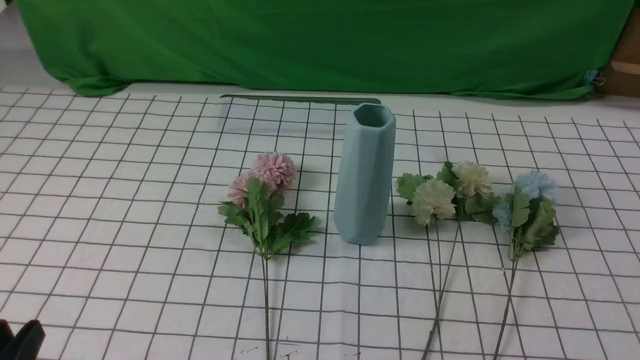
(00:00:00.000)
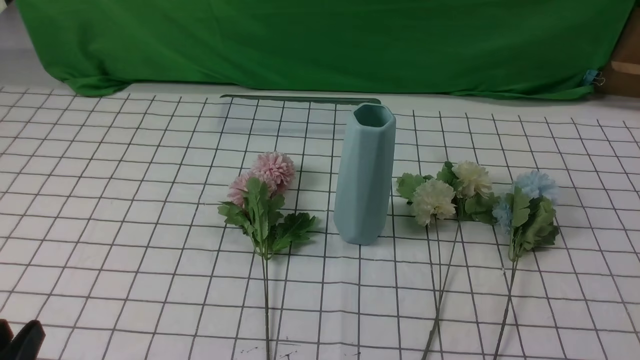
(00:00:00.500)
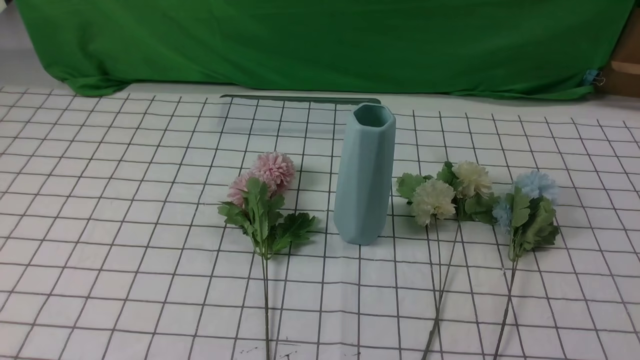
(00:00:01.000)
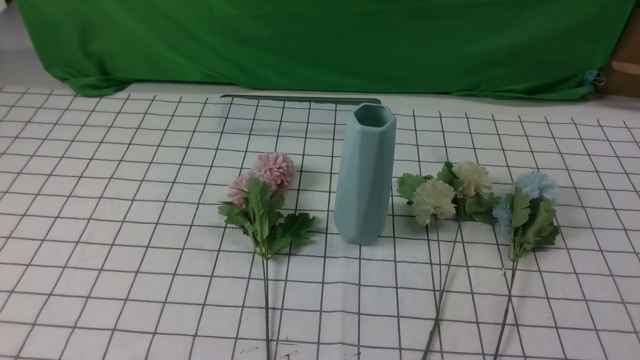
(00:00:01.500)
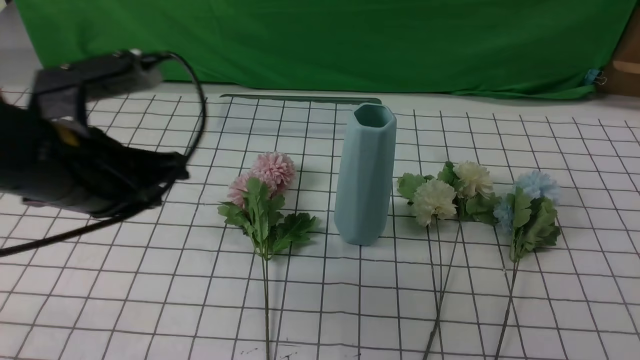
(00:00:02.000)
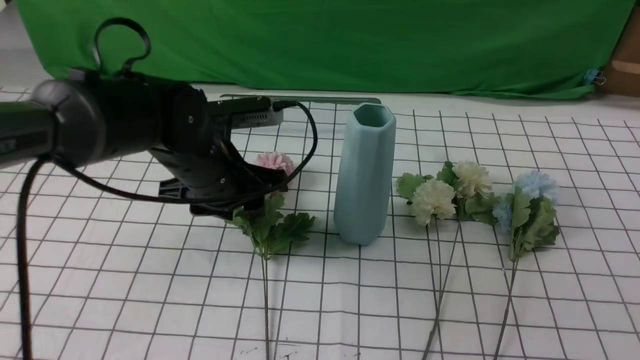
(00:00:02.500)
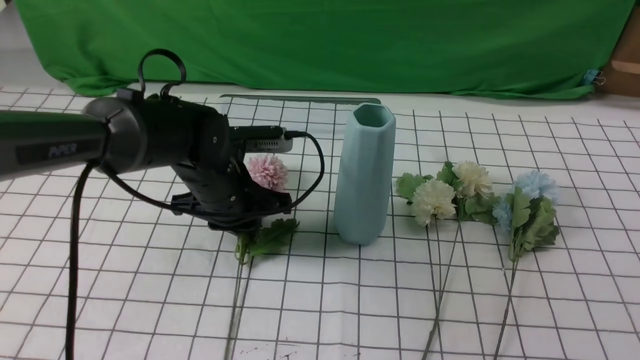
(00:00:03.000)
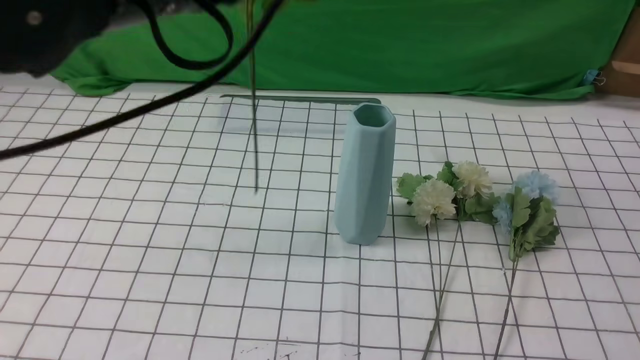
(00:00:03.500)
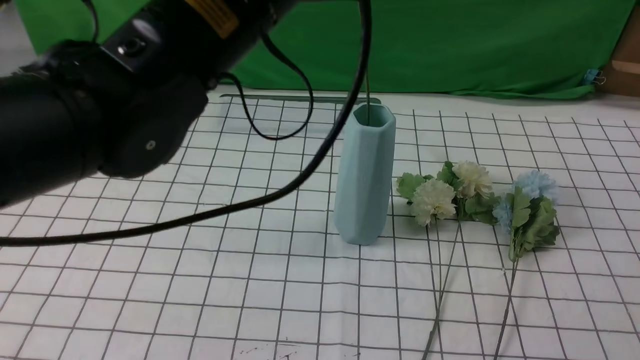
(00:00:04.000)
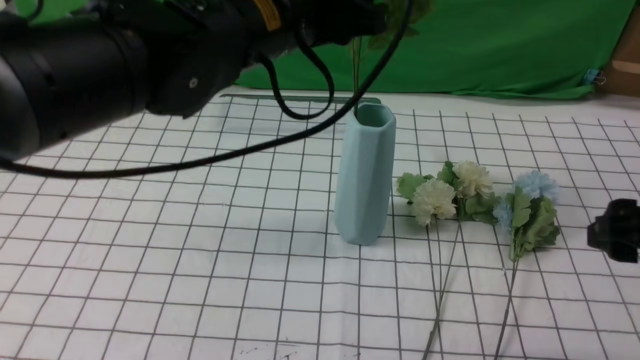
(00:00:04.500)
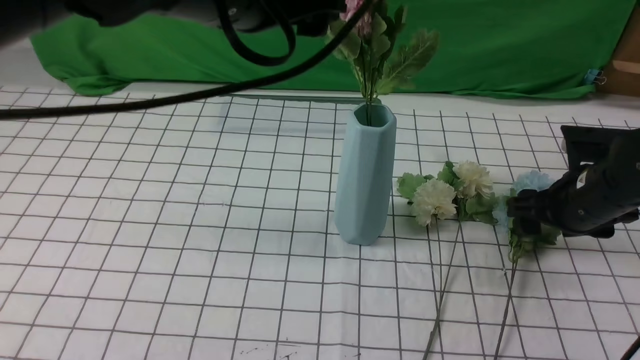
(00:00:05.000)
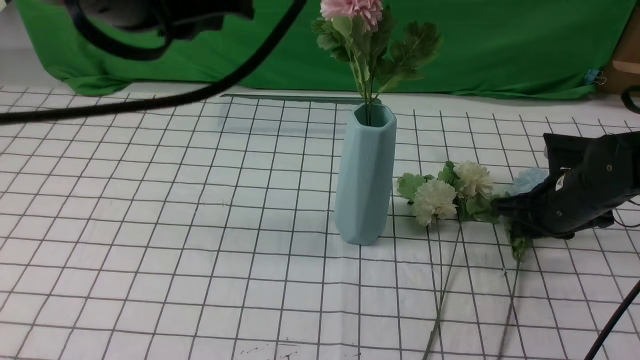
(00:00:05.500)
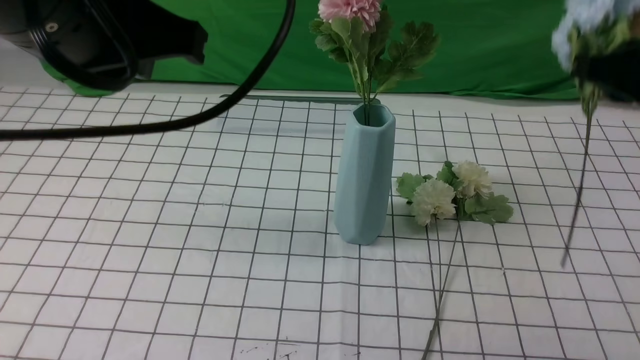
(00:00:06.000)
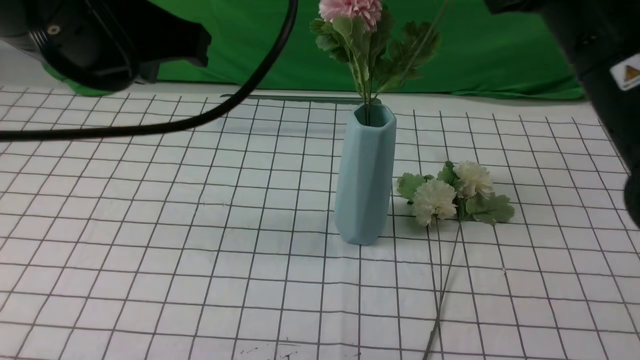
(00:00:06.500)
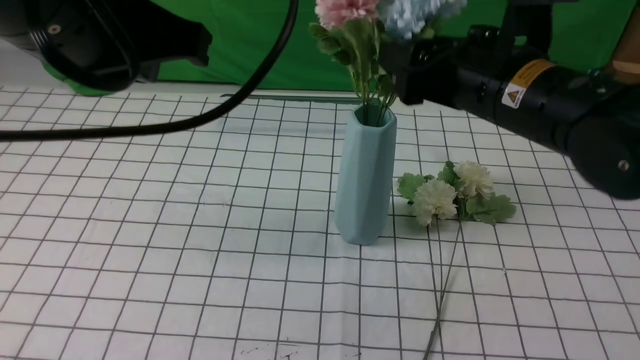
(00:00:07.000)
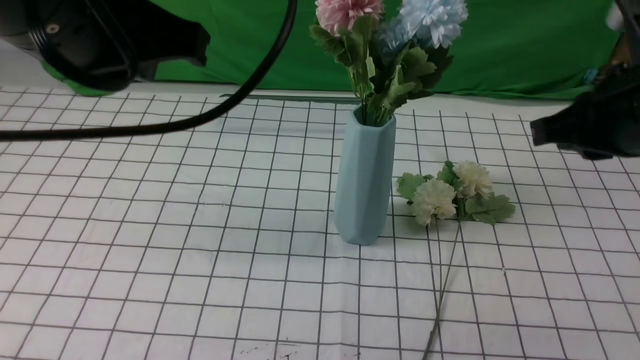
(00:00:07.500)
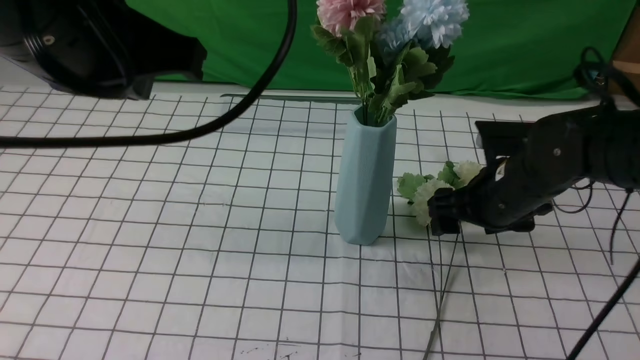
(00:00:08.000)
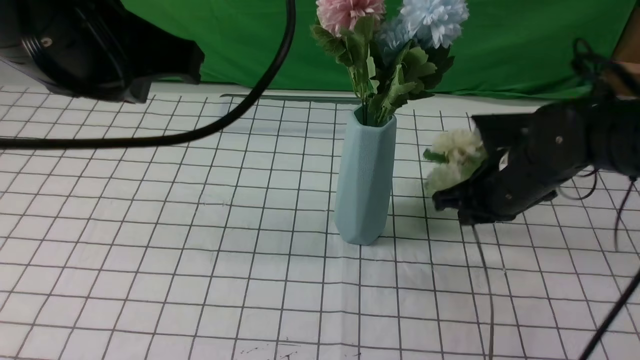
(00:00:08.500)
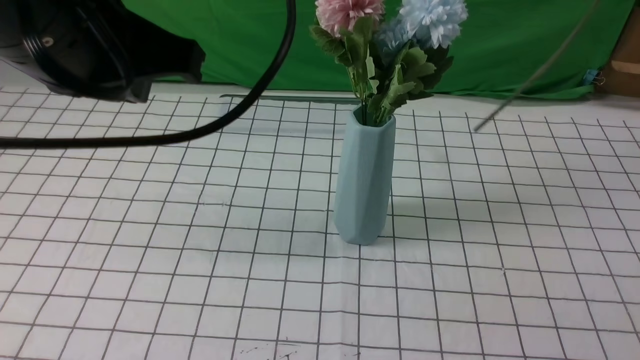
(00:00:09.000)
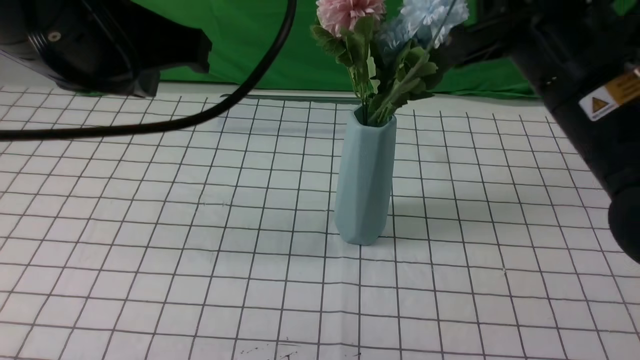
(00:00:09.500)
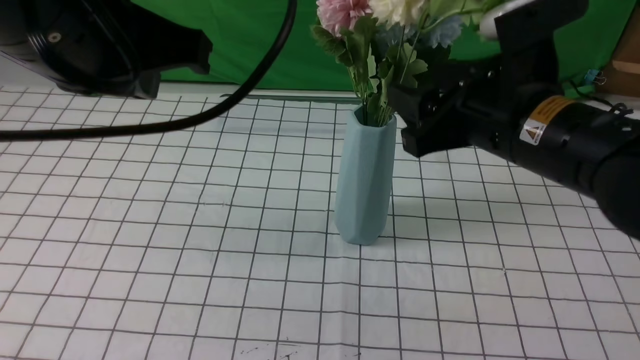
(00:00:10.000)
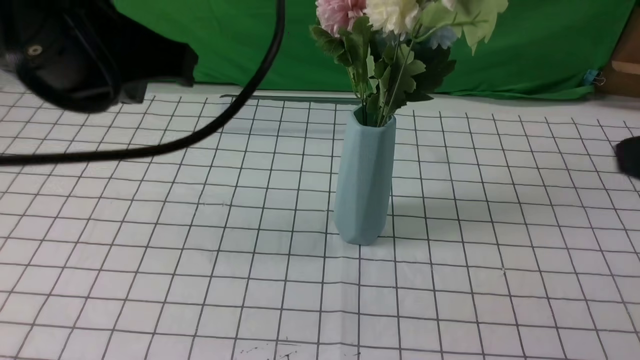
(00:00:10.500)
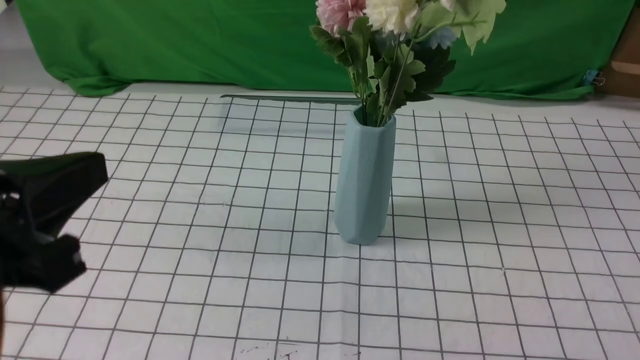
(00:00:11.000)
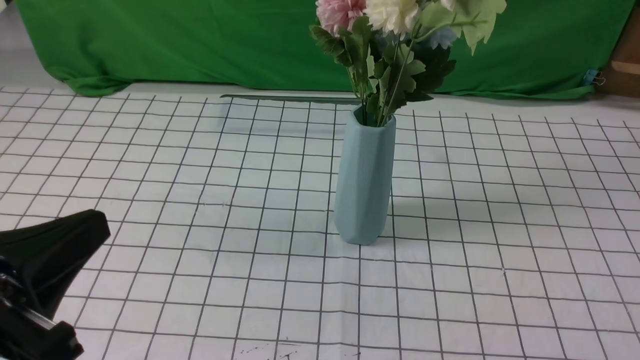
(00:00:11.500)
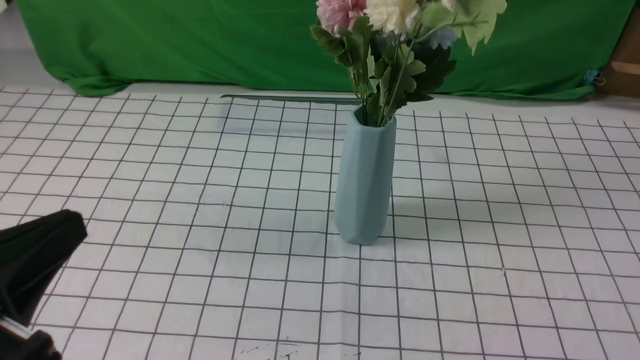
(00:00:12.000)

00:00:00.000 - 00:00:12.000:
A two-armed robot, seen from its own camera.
Task of the whole recording: insert the flowers into the vase on the table with the white tablecloth.
Step, 00:00:00.000 - 00:00:03.000: use the left arm to grab a bunch of fresh flowers.
Step, 00:00:03.500 - 00:00:04.500: use the left arm to insert the flowers into the vase.
Step, 00:00:05.000 - 00:00:05.500: use the right arm to grab a bunch of fresh flowers.
Step, 00:00:06.000 - 00:00:07.000: use the right arm to insert the flowers into the vase.
Step, 00:00:07.500 - 00:00:08.000: use the right arm to grab a bunch of fresh flowers.
Step, 00:00:08.500 - 00:00:10.000: use the right arm to insert the flowers into the vase.
00:00:00.000 - 00:00:02.000: The right gripper travels upward by roughly 10 cm; the left gripper travels forward and upward by about 25 cm, and closes.
00:00:02.000 - 00:00:04.000: The right gripper heads forward and upward, covering about 10 cm, and opens. The left gripper shifts some 15 cm to the right and upward, and opens, then closes again.
00:00:04.000 - 00:00:06.000: The left gripper shifts roughly 10 cm to the left and backward, and opens and closes again; the right gripper heads forward, covering approximately 15 cm, and closes.
00:00:06.000 - 00:00:08.000: The right gripper moves downward, roughly 15 cm, and opens its fingers.
00:00:08.000 - 00:00:10.000: The right gripper heads upward and backward, covering about 15 cm, and closes, then reopens.
00:00:10.000 - 00:00:12.000: The right gripper shifts some 30 cm backward and to the right, and closes its fingers, while the left gripper heads backward, downward and to the left, covering some 20 cm.
